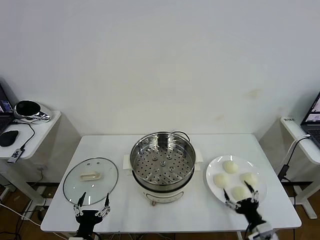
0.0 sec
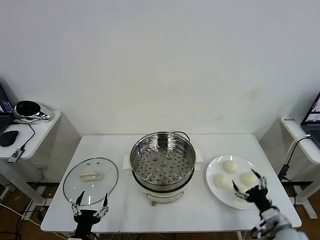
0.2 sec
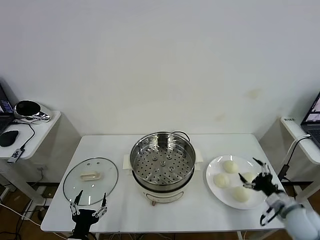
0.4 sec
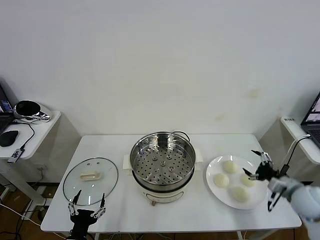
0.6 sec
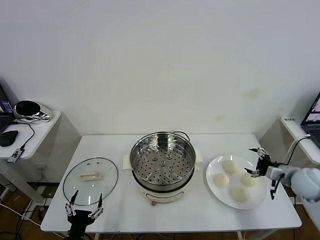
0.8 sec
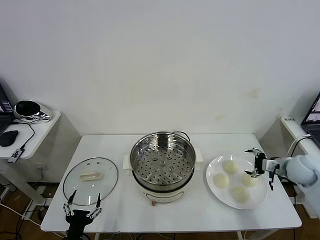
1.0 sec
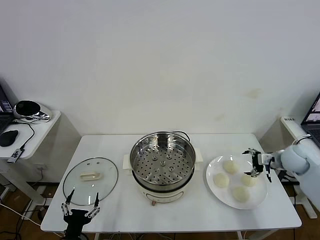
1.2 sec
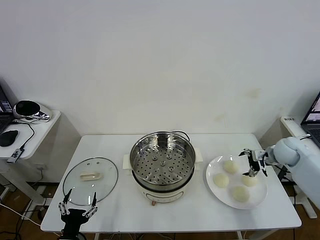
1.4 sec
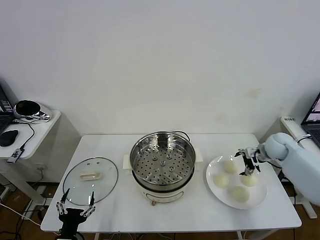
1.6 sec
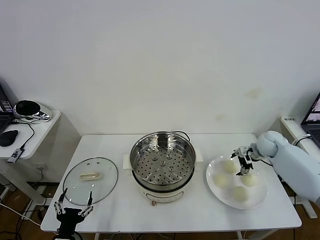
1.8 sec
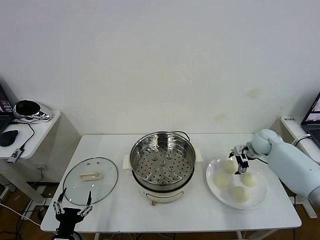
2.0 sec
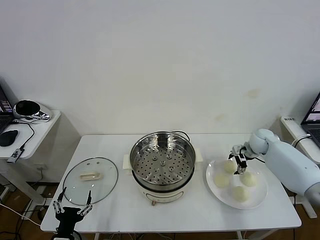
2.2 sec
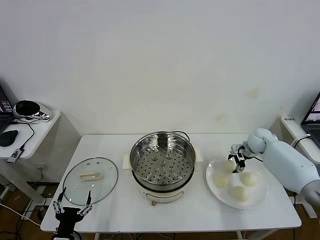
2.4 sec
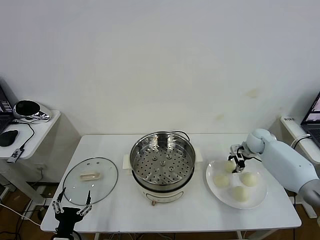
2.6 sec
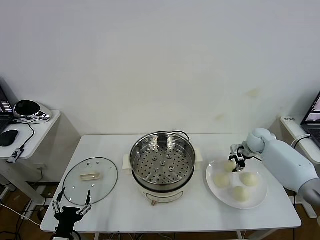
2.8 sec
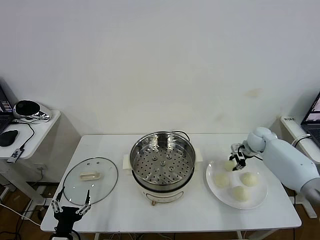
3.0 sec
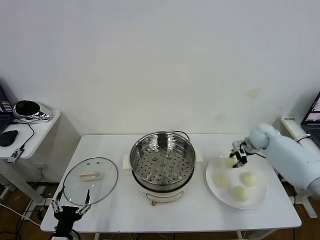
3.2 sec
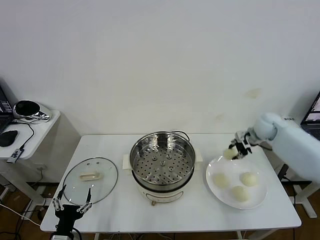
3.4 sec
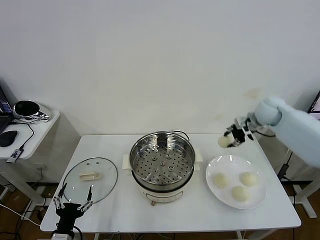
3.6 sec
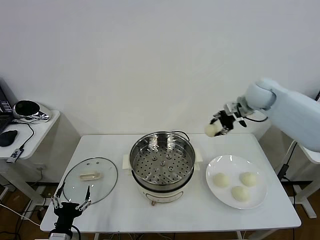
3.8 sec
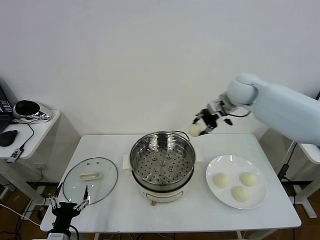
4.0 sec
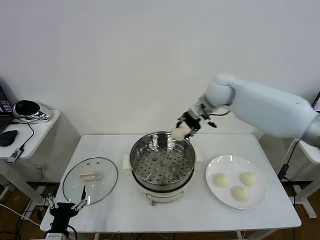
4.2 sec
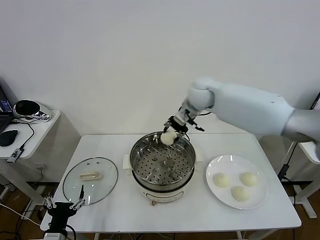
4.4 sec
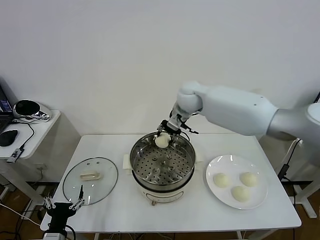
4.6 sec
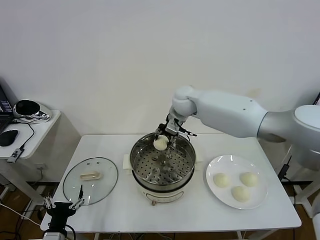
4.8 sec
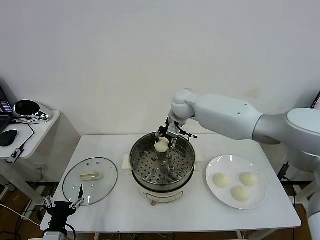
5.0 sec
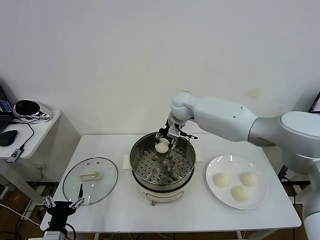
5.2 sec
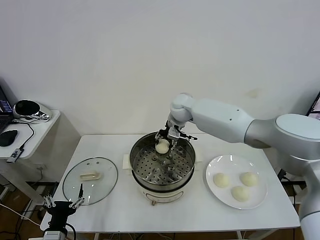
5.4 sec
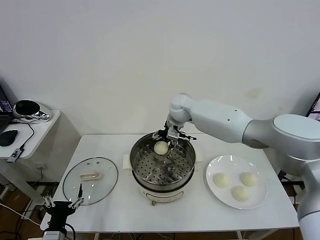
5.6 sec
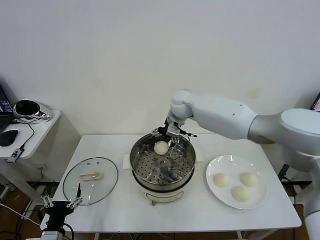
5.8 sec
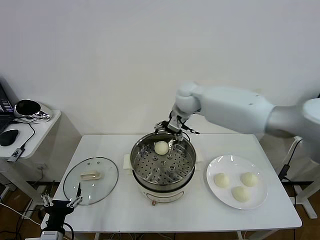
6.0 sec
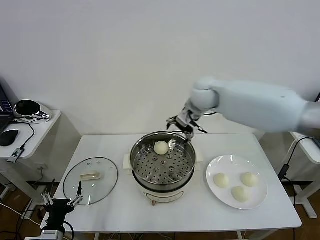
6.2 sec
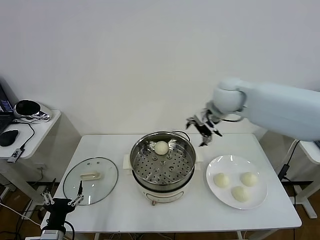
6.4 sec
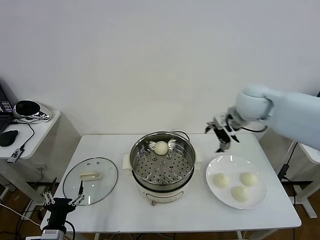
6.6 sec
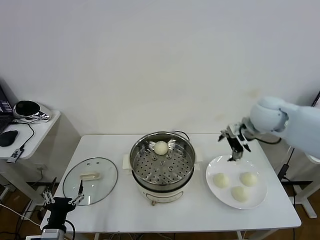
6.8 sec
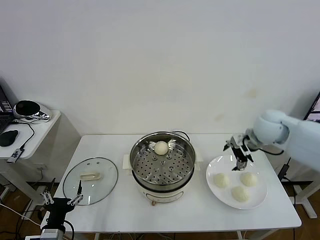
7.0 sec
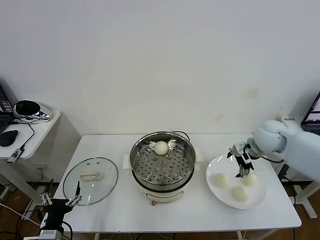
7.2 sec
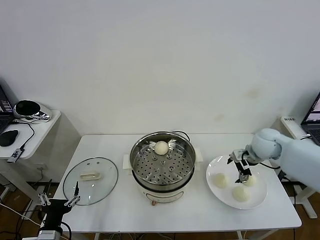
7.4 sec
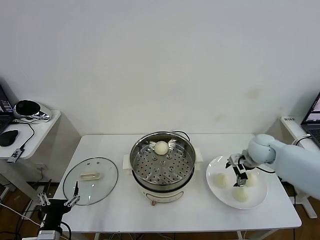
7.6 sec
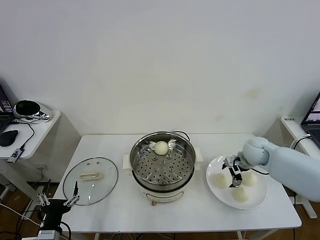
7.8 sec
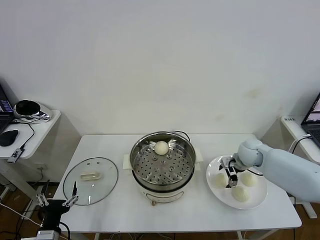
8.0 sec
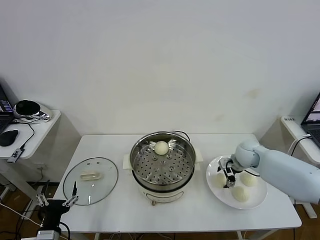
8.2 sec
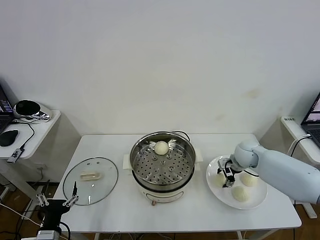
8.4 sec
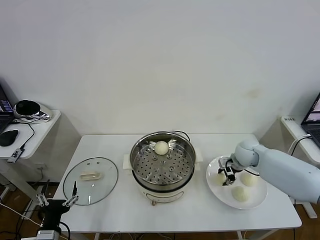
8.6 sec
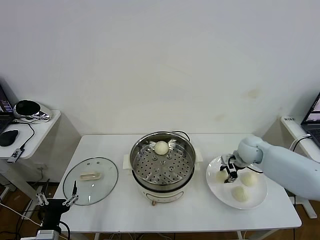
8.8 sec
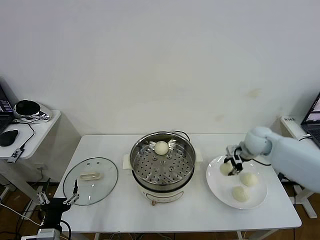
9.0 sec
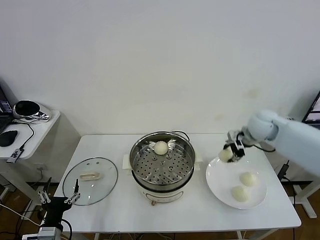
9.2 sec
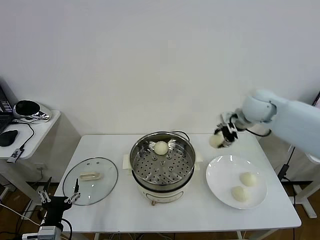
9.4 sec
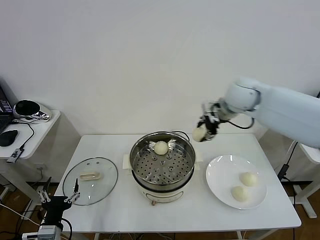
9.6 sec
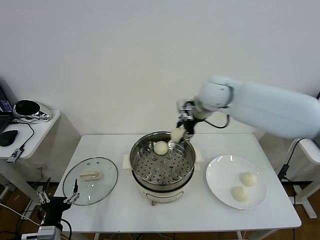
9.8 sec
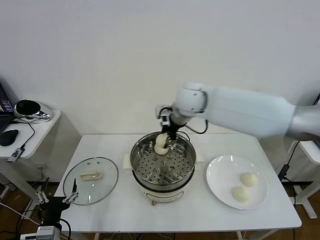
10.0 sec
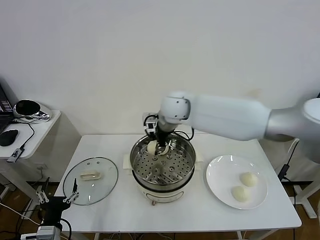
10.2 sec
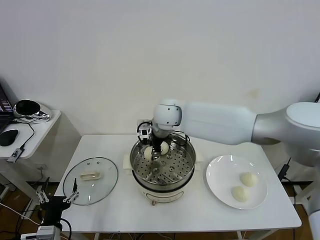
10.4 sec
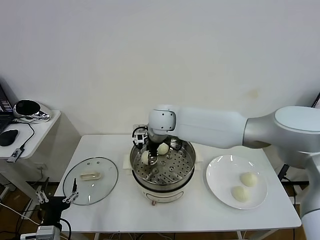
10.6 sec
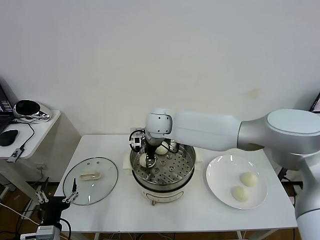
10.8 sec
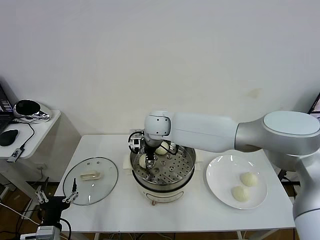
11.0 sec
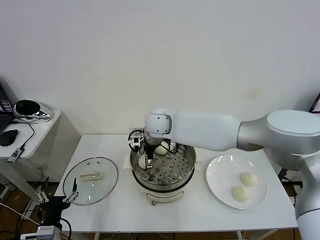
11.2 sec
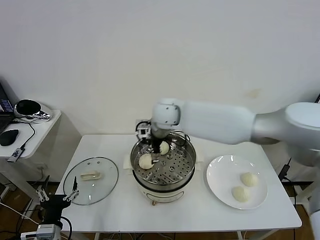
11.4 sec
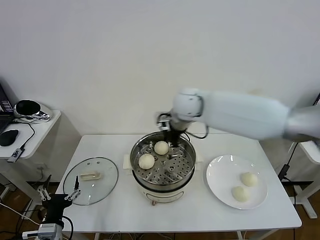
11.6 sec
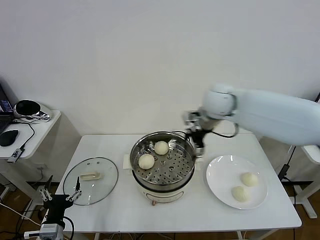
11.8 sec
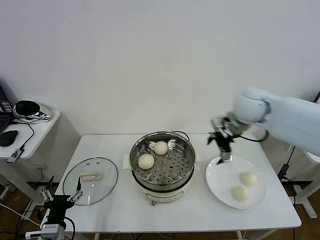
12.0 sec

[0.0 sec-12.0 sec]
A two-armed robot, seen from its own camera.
Task of the whole recording: take steamed baozi put them in steamer then cover it.
Step, 0.0 sec to 2.6 sec: Grasp the baozi in the plate with right gripper.
Step, 3.0 sec to 5.6 sec: Place the baozi on the steamer with right gripper.
Step, 5.8 sec to 8.6 sec: Grasp the baozi in the plate with right gripper.
Step, 8.8 sec to 11.2 sec: Place the baozi on the steamer with right gripper.
1.6 sec to 3.0 sec: The right gripper goes about 5 cm forward, and closes.
3.0 sec to 4.4 sec: The right gripper is displaced to the left and upward by approximately 35 cm.
4.4 sec to 6.0 sec: The right gripper goes downward and returns, about 10 cm each way, and opens its fingers.
6.0 sec to 7.6 sec: The right gripper heads to the right and downward, covering roughly 30 cm.
7.6 sec to 9.0 sec: The right gripper closes its fingers.
9.0 sec to 10.4 sec: The right gripper goes roughly 30 cm to the left.
10.4 sec to 12.0 sec: The right gripper moves to the right, about 20 cm, and opens up.

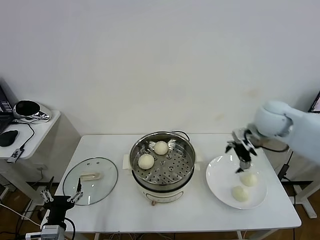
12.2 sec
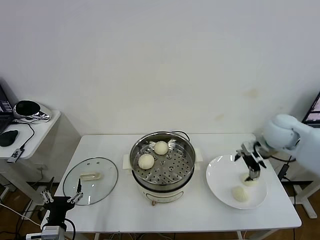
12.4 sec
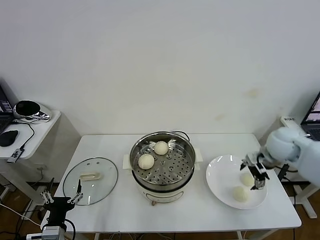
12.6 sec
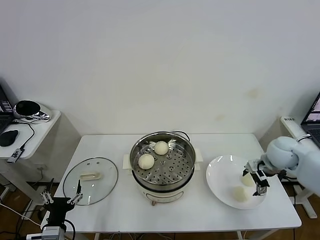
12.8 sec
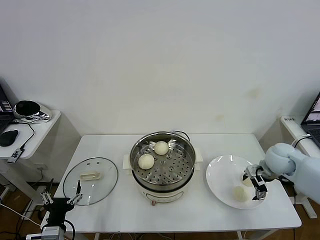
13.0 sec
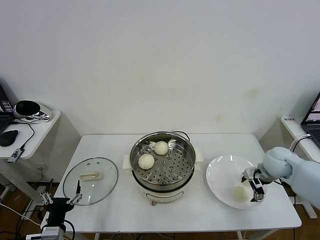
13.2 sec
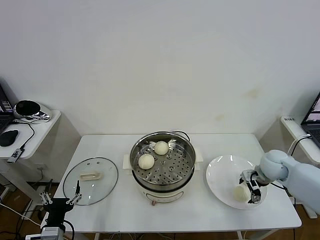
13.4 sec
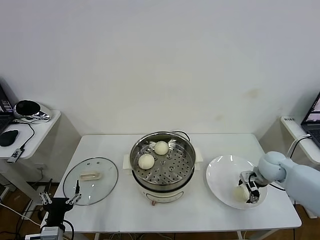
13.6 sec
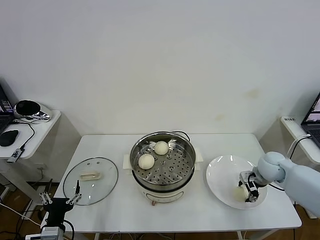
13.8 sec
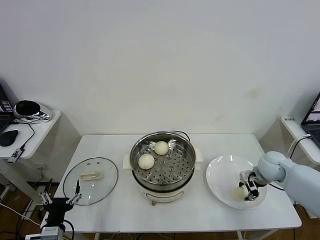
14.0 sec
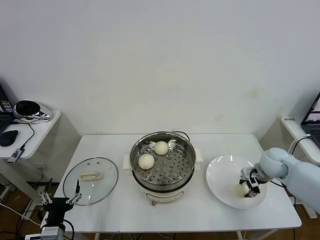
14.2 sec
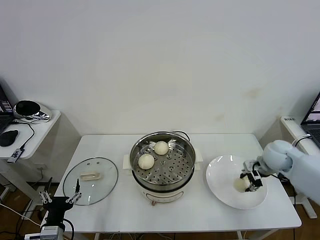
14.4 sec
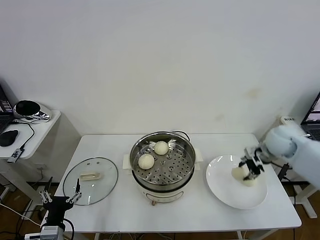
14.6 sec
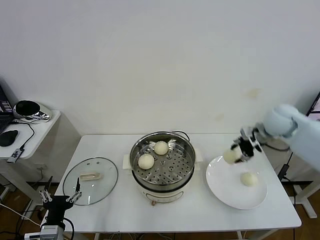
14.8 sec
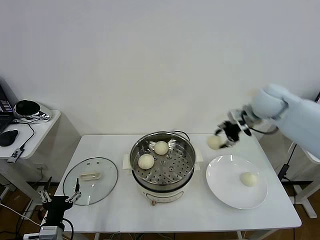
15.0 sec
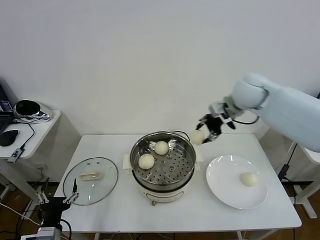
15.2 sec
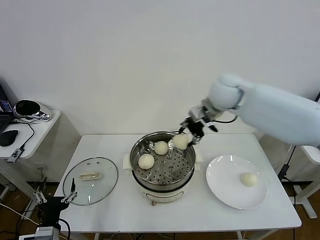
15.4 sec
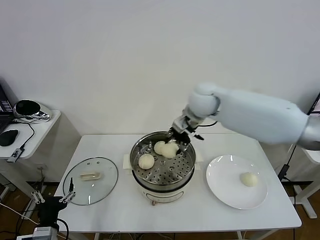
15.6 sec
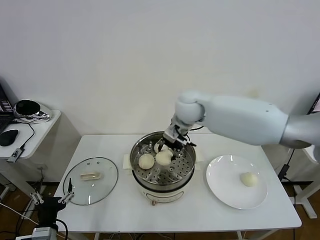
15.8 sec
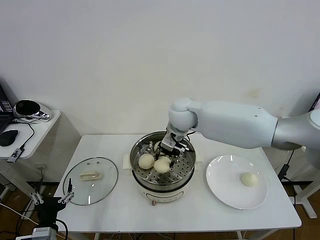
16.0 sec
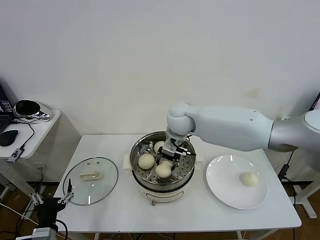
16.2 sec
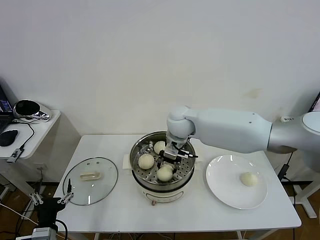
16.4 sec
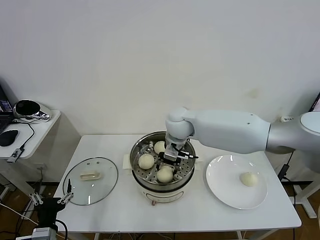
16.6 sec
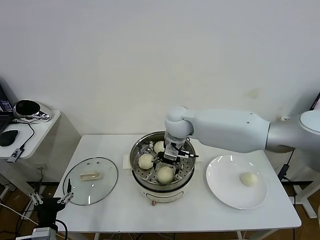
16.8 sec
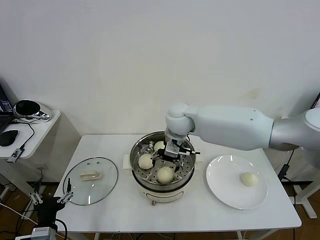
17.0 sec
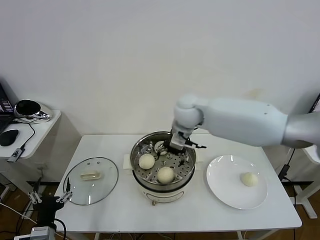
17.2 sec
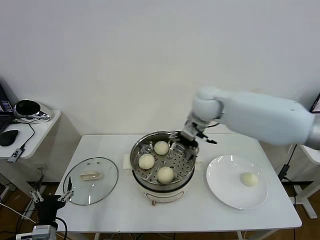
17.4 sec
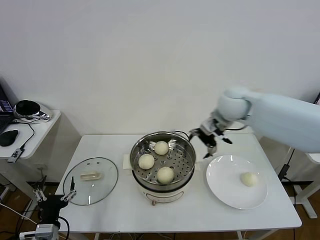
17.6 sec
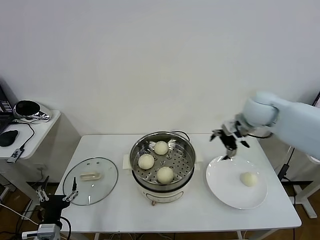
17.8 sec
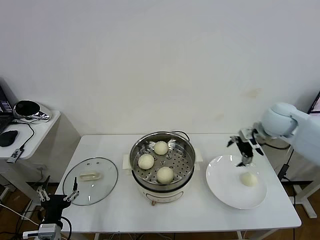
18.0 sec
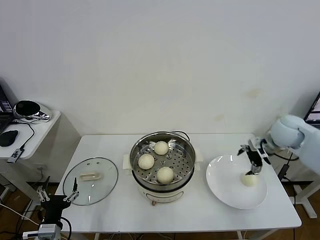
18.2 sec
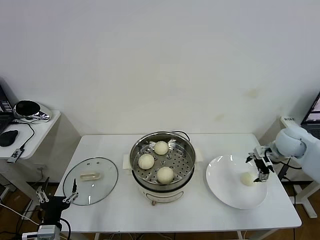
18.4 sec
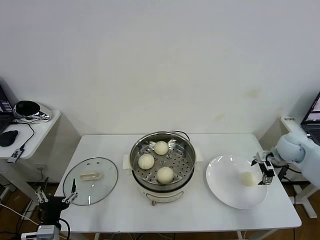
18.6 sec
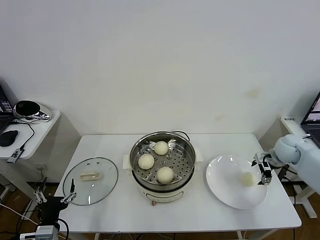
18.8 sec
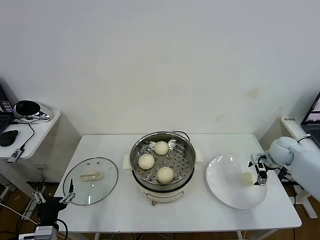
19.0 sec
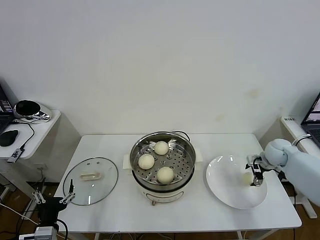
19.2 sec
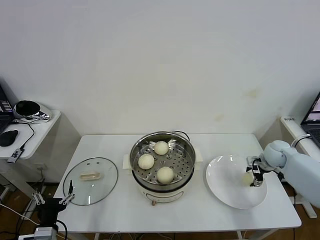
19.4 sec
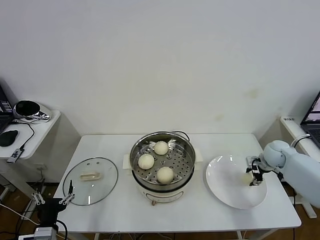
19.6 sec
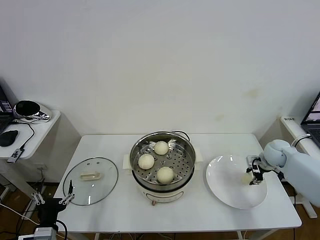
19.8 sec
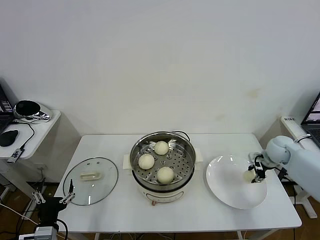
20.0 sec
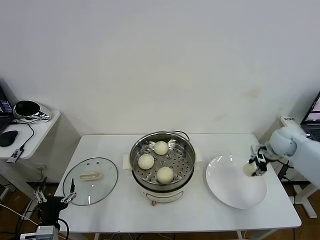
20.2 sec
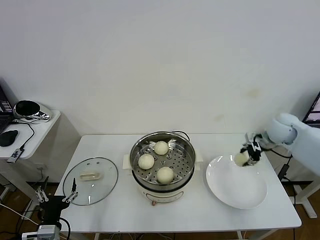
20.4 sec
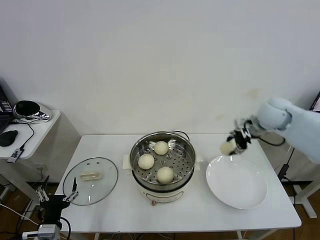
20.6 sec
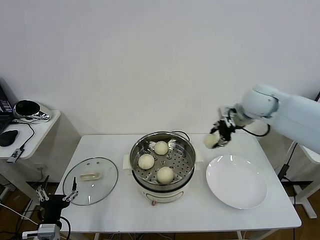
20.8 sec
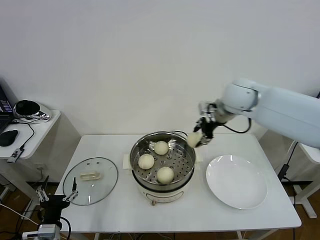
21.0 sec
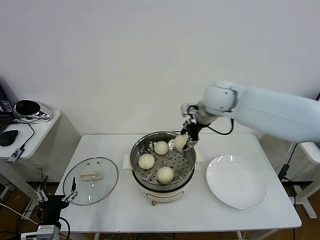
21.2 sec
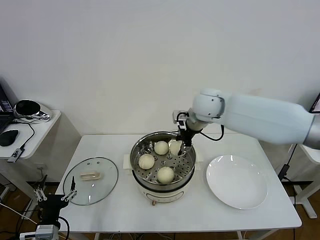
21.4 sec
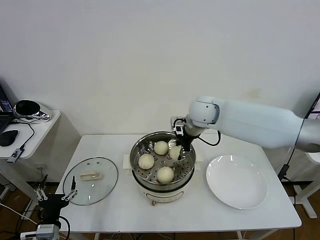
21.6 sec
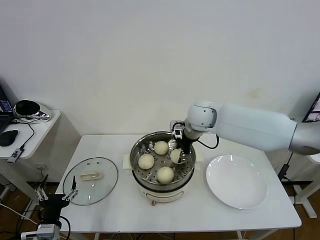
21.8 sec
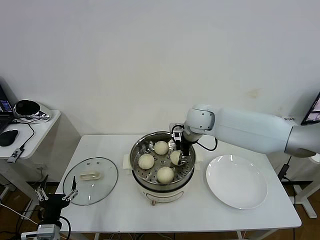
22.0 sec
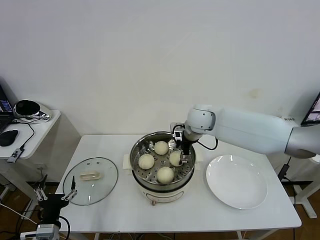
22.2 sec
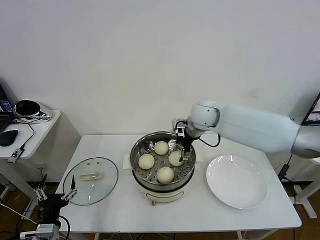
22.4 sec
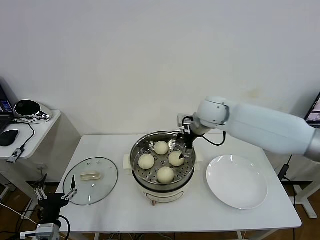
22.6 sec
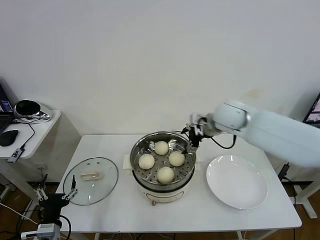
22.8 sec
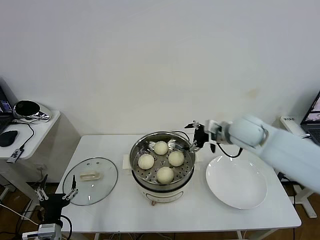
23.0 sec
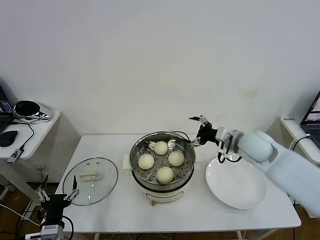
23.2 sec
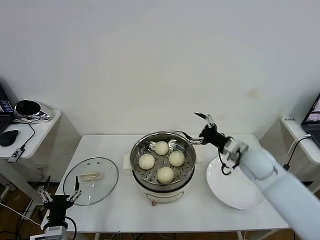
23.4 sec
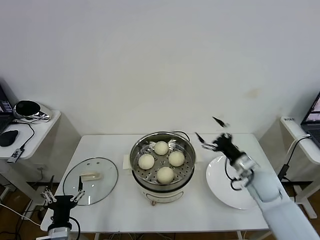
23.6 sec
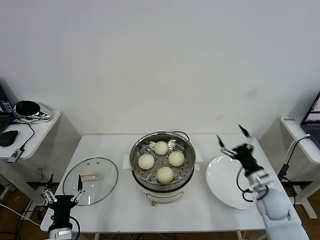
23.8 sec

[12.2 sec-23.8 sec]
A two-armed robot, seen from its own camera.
Task of the whole recording: take steamed baozi put them in steamer then cover it.
Step, 12.2 sec to 14.0 sec: Grasp the baozi in the plate with right gripper.
Step, 14.4 sec to 16.8 sec: Place the baozi on the steamer with right gripper.
Step, 17.2 sec to 19.8 sec: Grasp the baozi in the plate with right gripper.
Step, 20.0 sec to 22.4 sec: Place the baozi on the steamer with right gripper.
12.2 sec to 13.6 sec: The right gripper shifts approximately 20 cm downward and to the right.
13.6 sec to 15.0 sec: The right gripper travels upward by some 20 cm, and closes up.
15.0 sec to 16.6 sec: The right gripper travels to the left by roughly 25 cm.
16.6 sec to 18.0 sec: The right gripper is displaced to the right by about 30 cm, and opens its fingers.
18.0 sec to 19.4 sec: The right gripper heads downward and to the right, covering roughly 20 cm, and closes its fingers.
19.4 sec to 21.0 sec: The right gripper shifts roughly 30 cm upward and to the left, and closes its fingers.
21.0 sec to 22.4 sec: The right gripper is displaced to the left and downward by roughly 15 cm, and opens up.
22.4 sec to 23.8 sec: The right gripper goes about 35 cm to the right, backward and downward.
